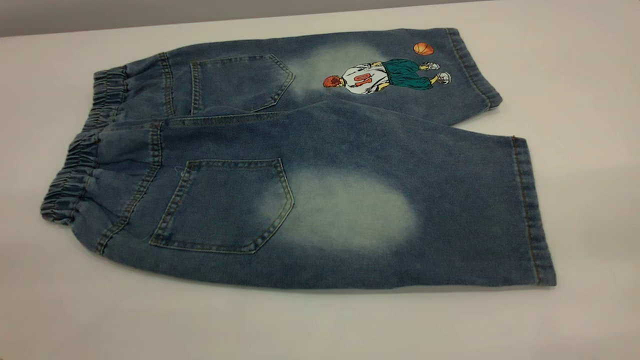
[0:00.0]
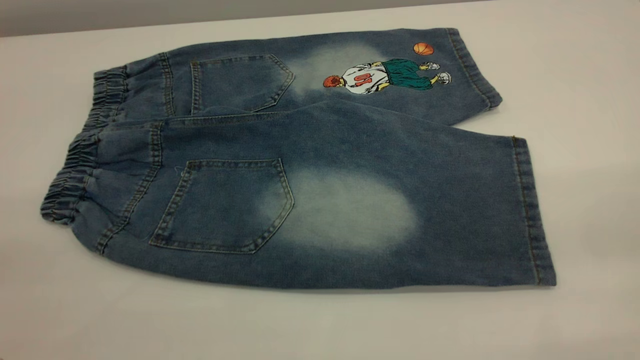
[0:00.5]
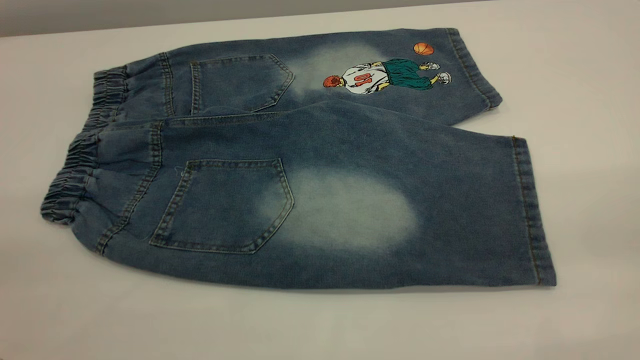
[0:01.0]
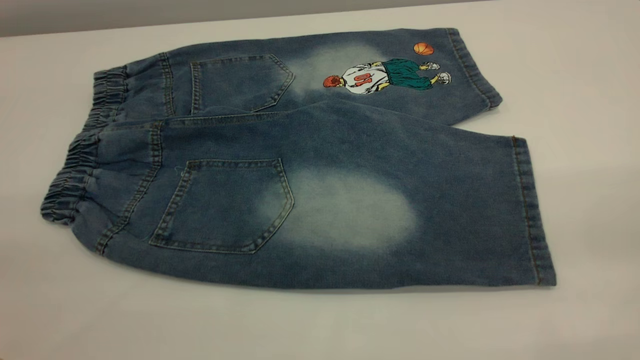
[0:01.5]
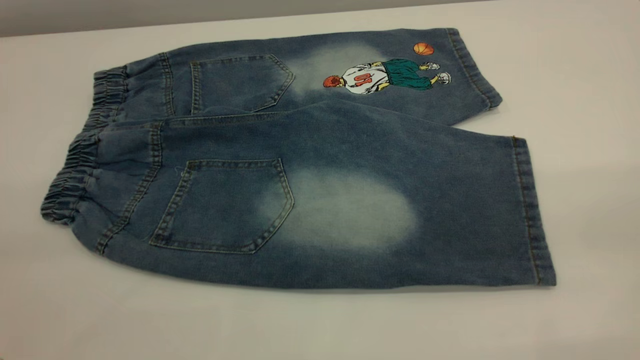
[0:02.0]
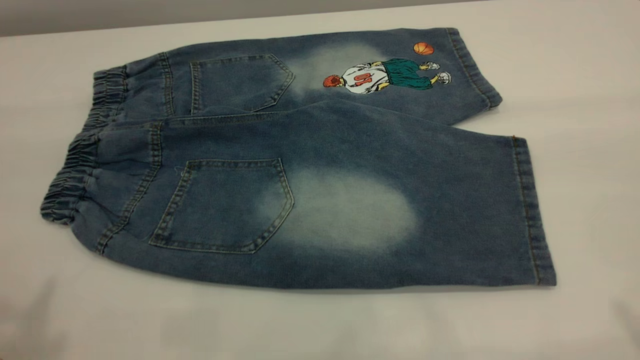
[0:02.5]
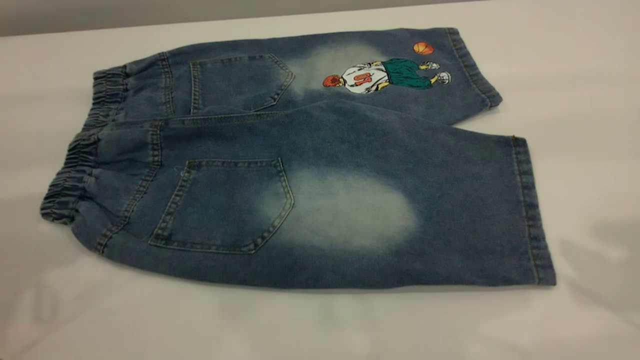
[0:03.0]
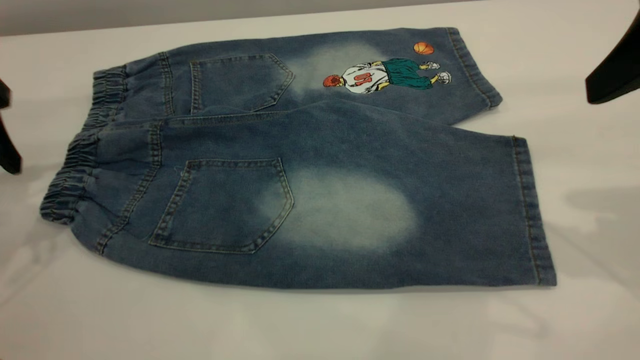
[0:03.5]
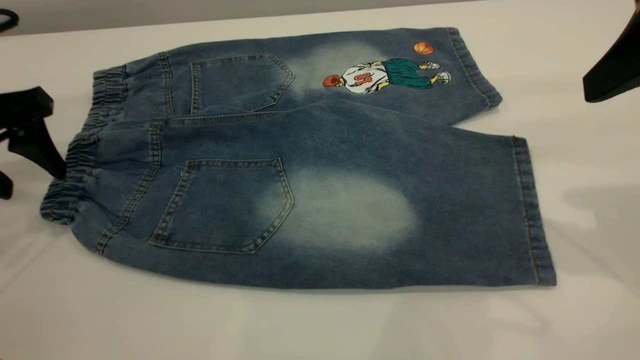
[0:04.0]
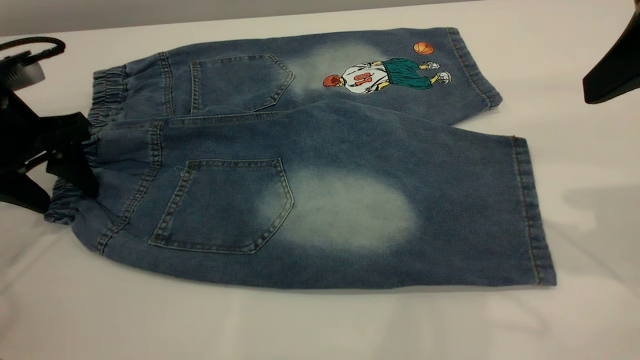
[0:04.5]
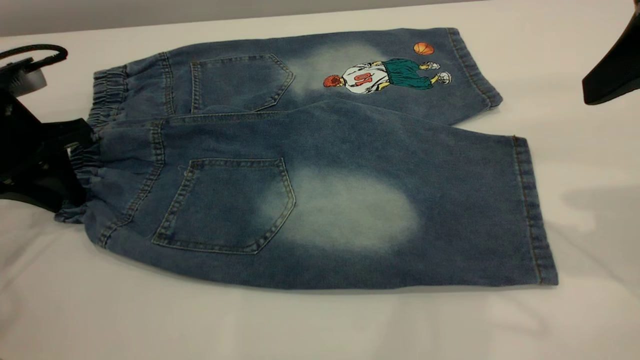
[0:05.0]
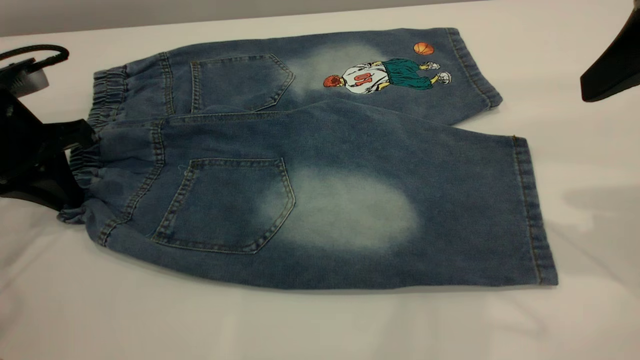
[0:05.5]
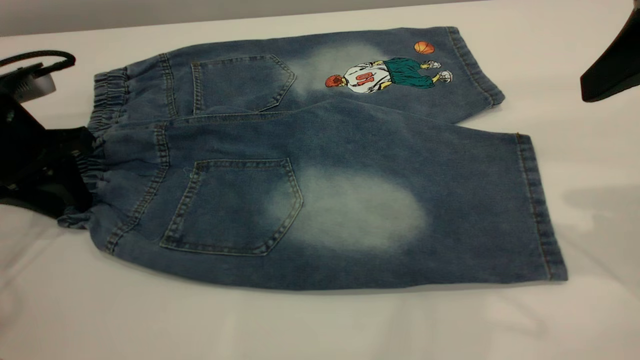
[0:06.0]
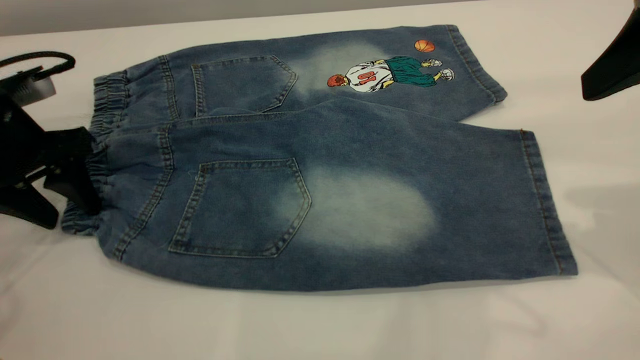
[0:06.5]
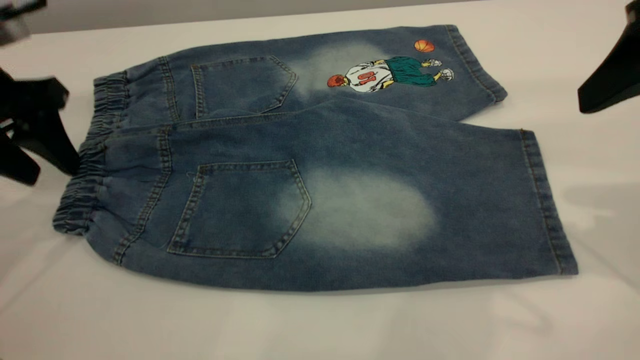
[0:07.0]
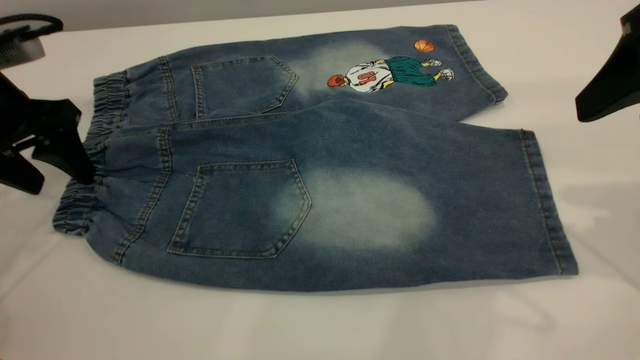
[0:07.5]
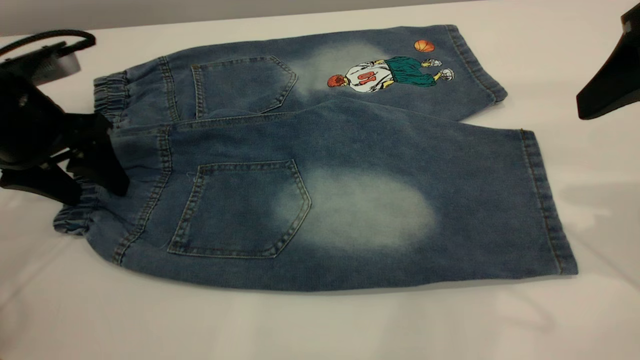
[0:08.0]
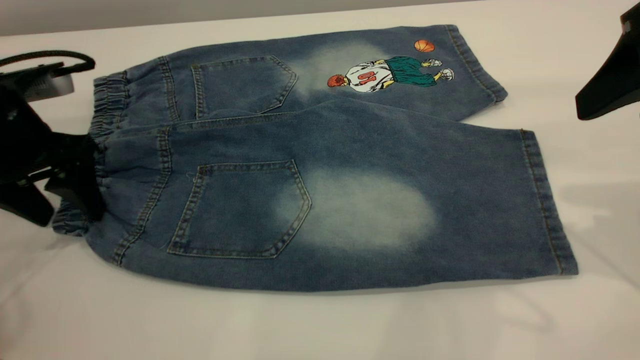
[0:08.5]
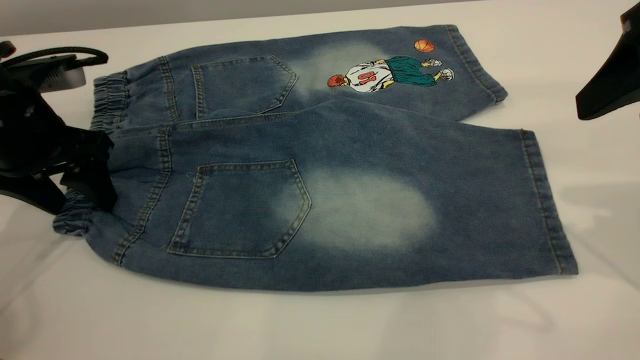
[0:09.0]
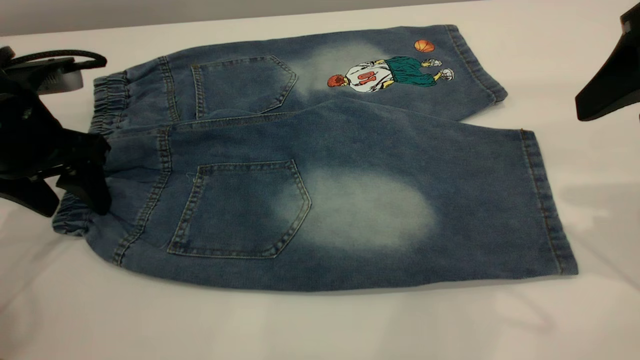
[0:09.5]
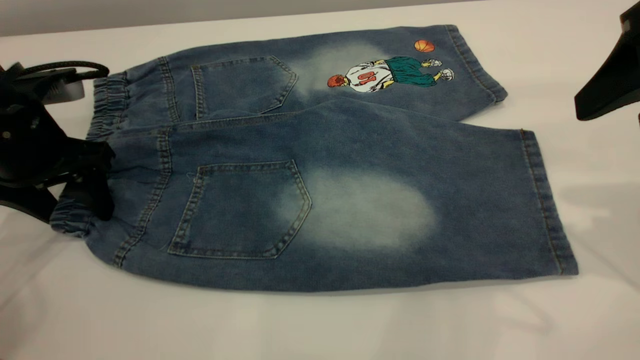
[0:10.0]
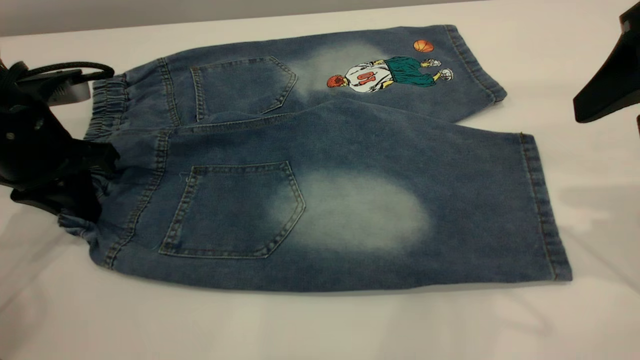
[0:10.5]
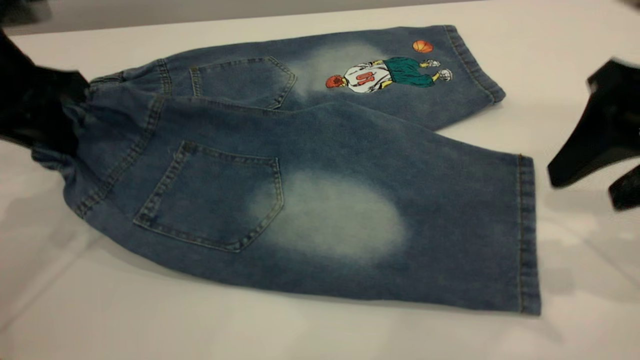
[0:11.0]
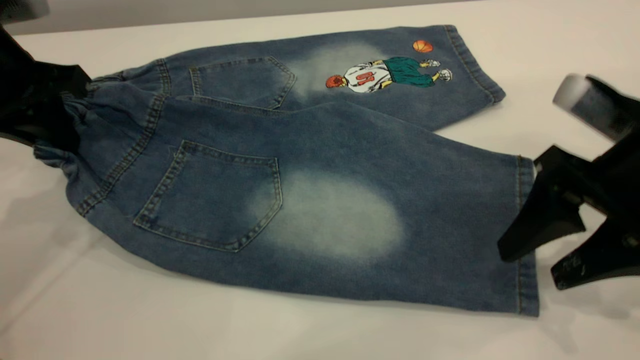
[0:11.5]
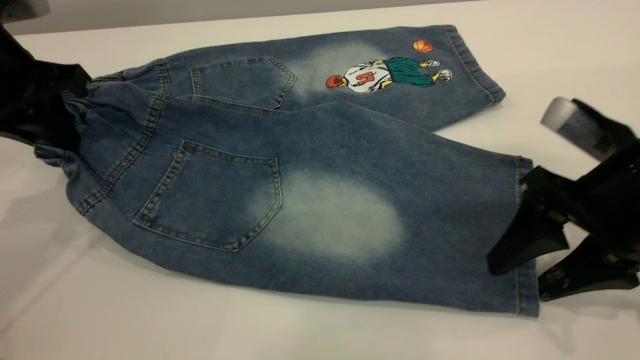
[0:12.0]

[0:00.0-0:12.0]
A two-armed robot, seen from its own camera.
0:02.0 to 0:04.0: The grippers both shift forward and downward by roughly 30 cm.
0:04.0 to 0:06.0: The left gripper closes up.
0:06.0 to 0:08.0: The left gripper opens.
0:08.0 to 0:10.0: There are only small adjustments of the grippers.
0:10.0 to 0:12.0: The right gripper goes some 15 cm downward, while the left gripper heads upward, covering some 5 cm, and closes its fingers.

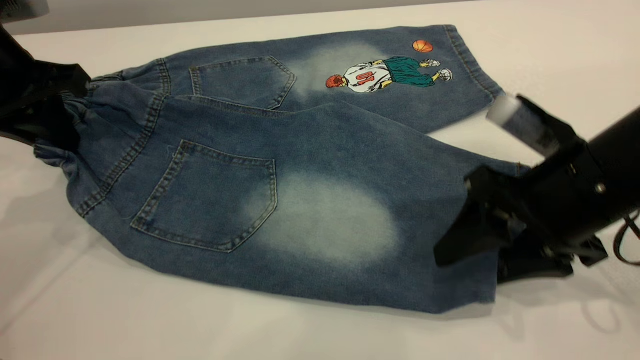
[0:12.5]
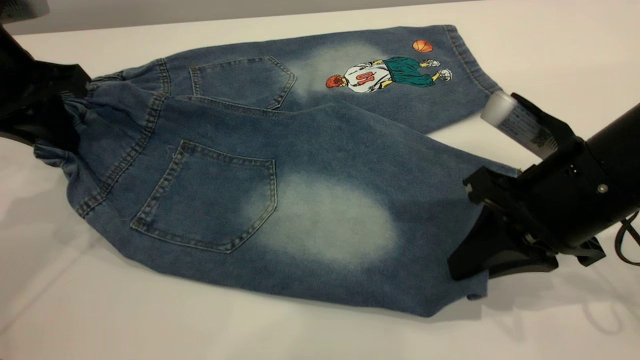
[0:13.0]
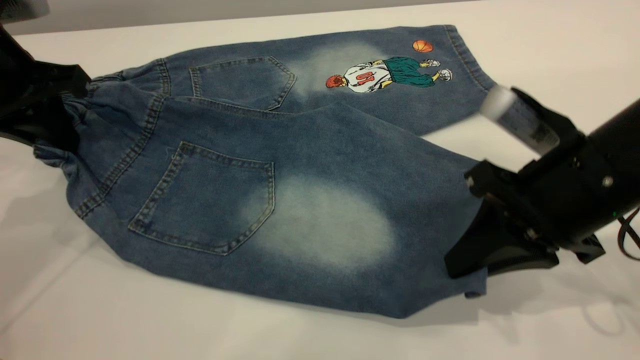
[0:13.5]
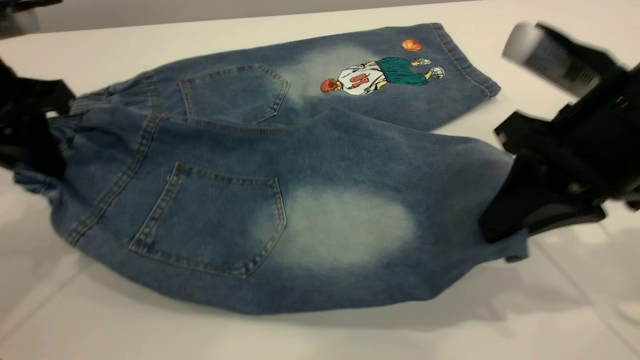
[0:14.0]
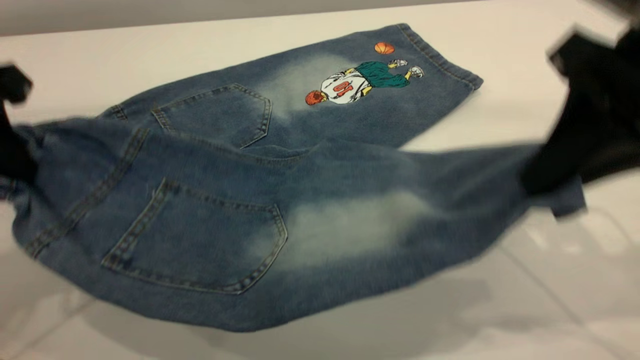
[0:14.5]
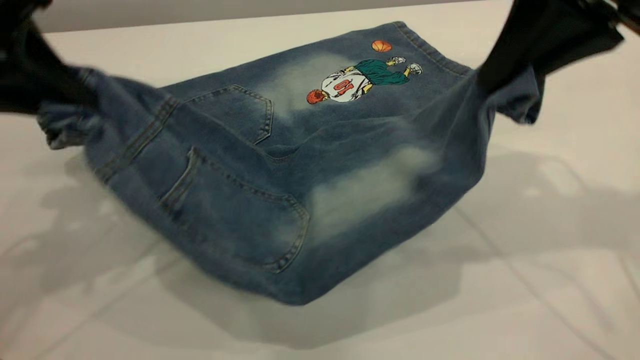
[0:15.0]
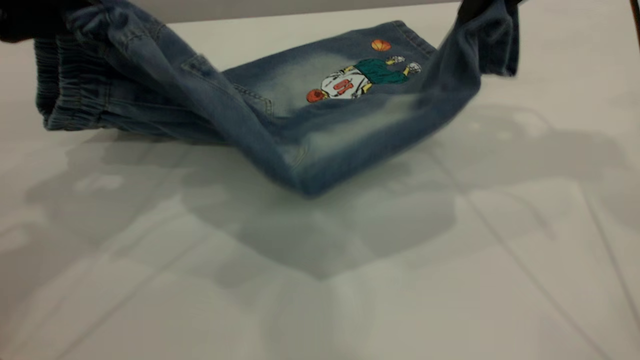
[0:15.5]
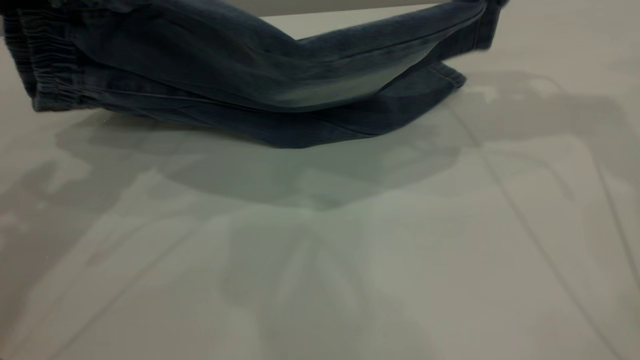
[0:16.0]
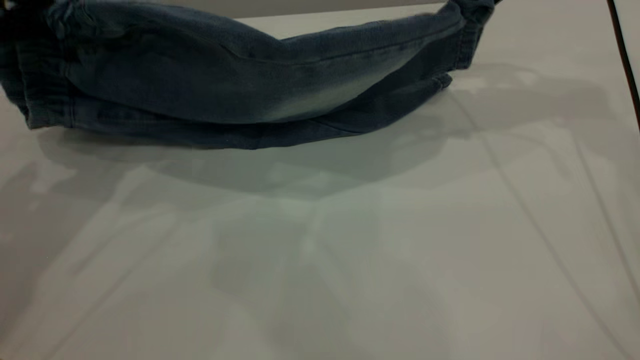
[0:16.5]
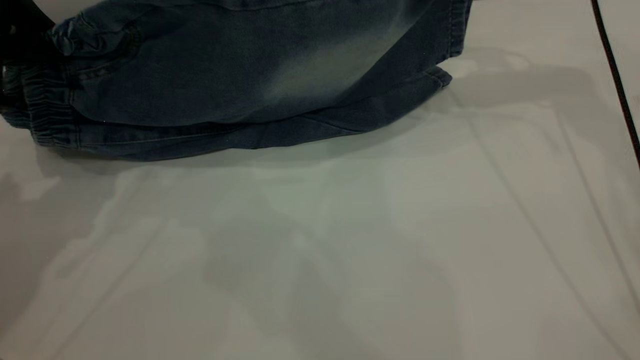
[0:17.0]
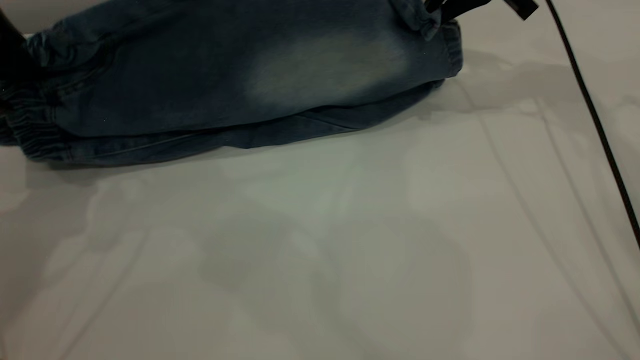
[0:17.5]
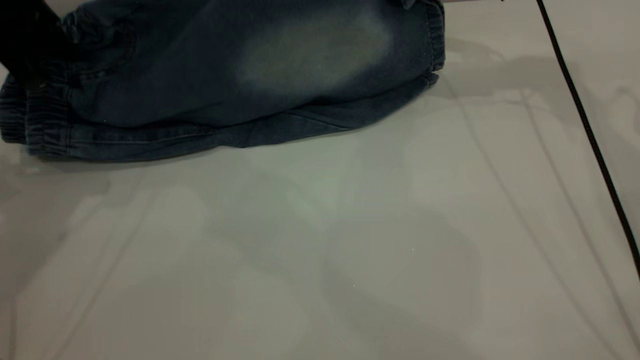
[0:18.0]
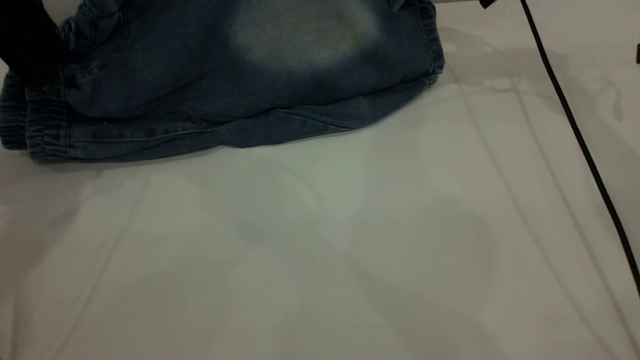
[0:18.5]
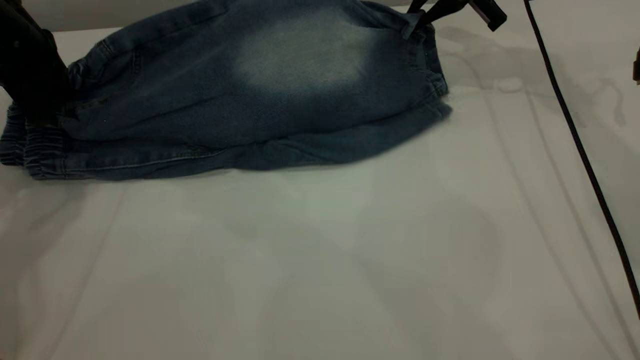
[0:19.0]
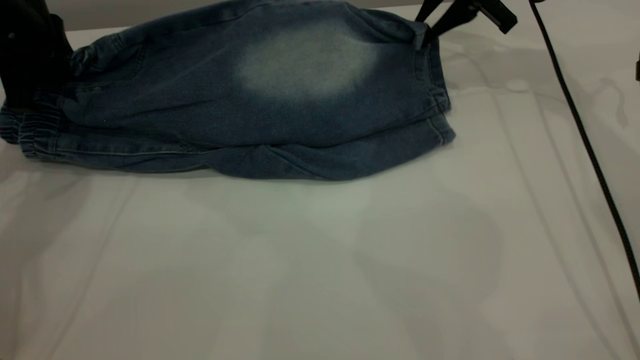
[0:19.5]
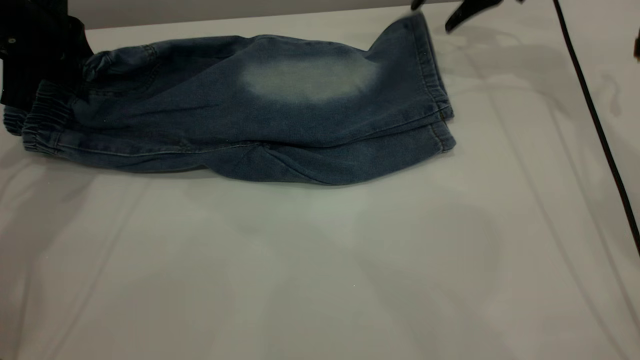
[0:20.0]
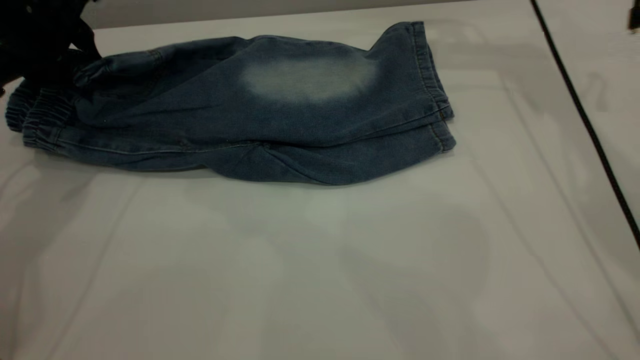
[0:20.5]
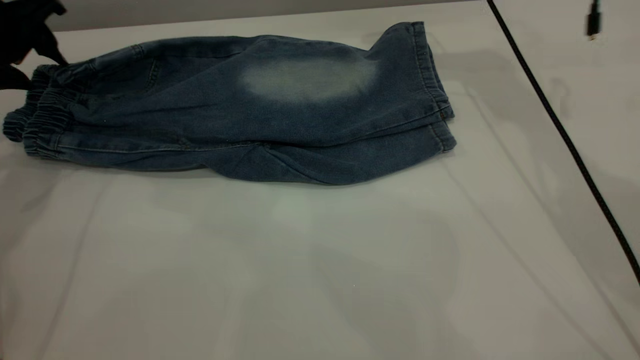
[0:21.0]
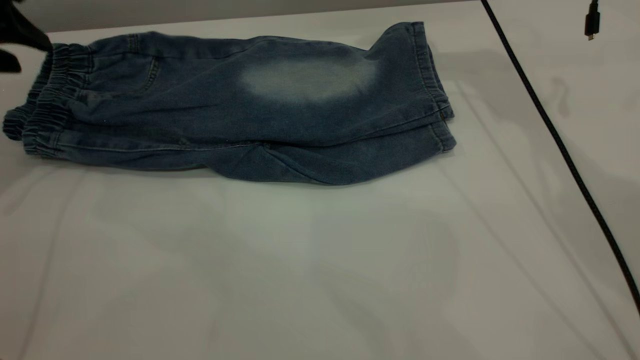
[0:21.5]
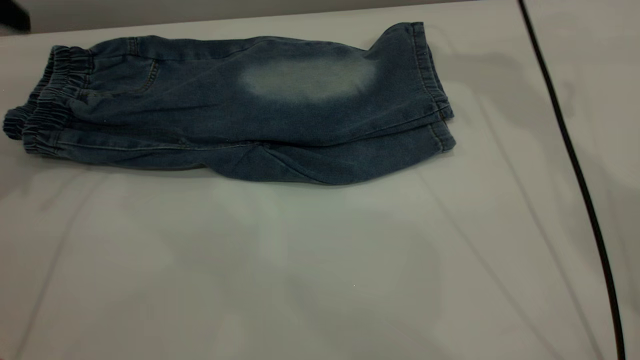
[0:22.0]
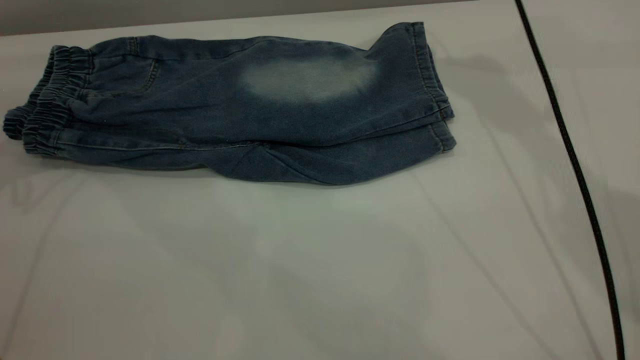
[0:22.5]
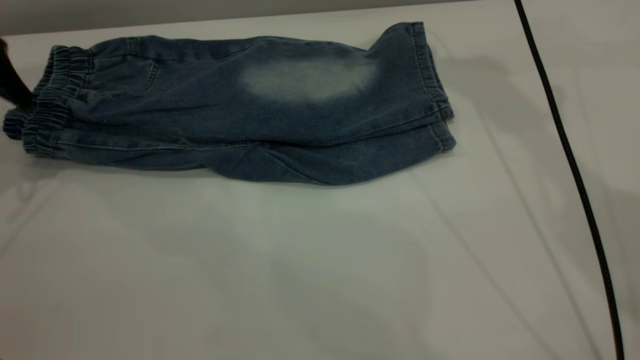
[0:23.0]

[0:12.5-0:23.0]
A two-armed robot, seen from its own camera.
Step, 0:12.5 to 0:21.5: Fold the bottom of the pants upward.
0:12.5 to 0:14.5: The right gripper heads upward, covering approximately 15 cm, and closes its fingers; the left gripper is displaced backward by roughly 5 cm.
0:14.5 to 0:16.5: The right gripper heads forward, covering some 20 cm, while the left gripper travels forward by roughly 5 cm.
0:16.5 to 0:19.0: The right gripper moves downward and forward, approximately 10 cm. The left gripper travels forward and downward by approximately 10 cm.
0:19.0 to 0:21.0: The left gripper opens its fingers, while the right gripper moves upward and to the left, approximately 10 cm, and opens up.
0:21.0 to 0:23.0: The right gripper travels upward by about 5 cm; the left gripper shifts by approximately 5 cm, and opens up.
